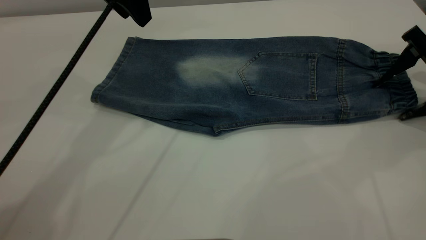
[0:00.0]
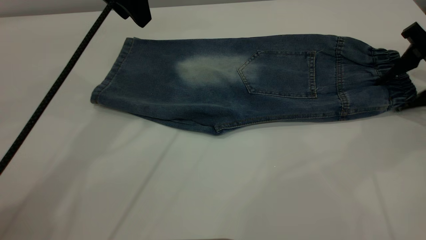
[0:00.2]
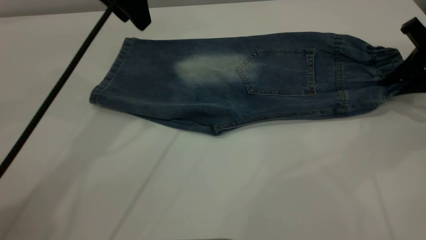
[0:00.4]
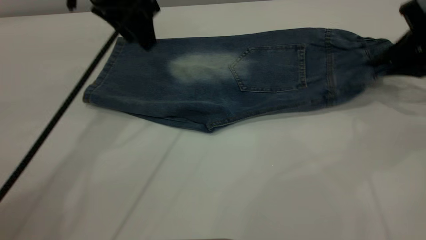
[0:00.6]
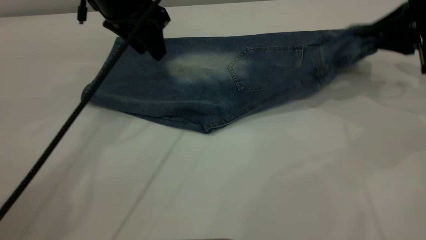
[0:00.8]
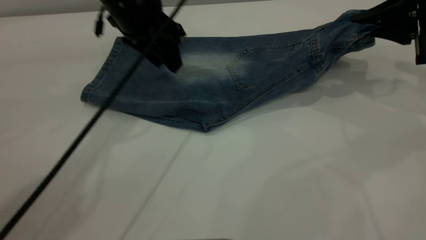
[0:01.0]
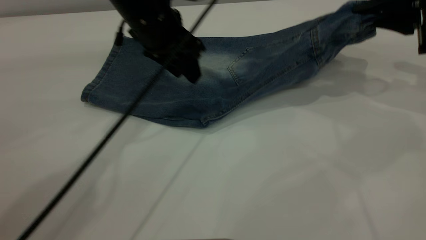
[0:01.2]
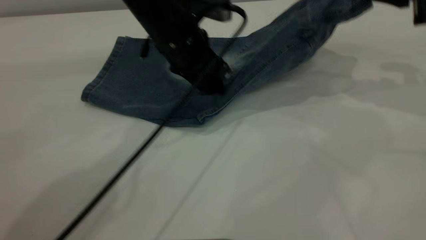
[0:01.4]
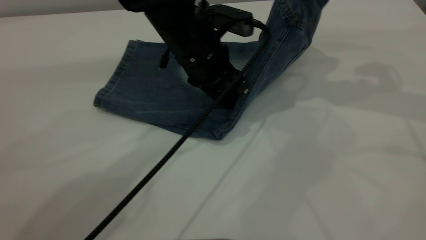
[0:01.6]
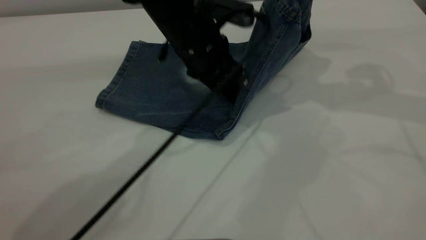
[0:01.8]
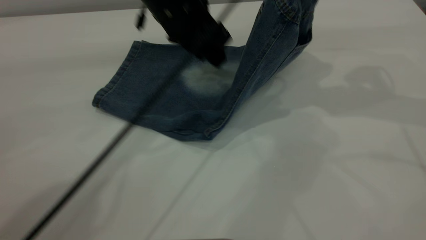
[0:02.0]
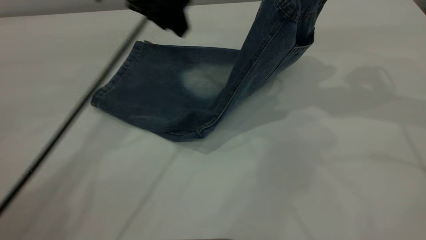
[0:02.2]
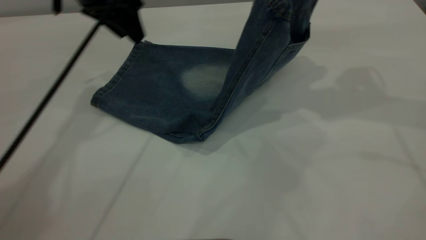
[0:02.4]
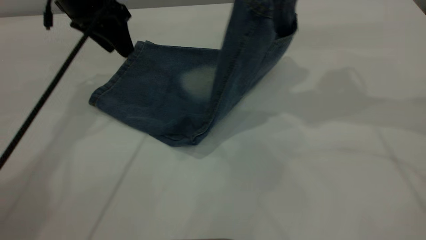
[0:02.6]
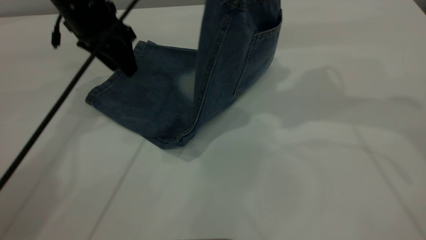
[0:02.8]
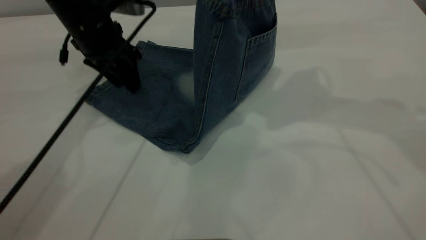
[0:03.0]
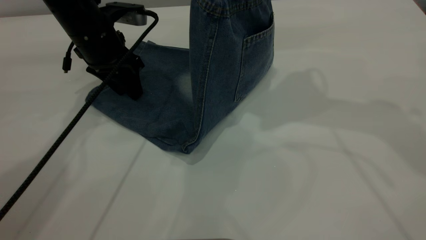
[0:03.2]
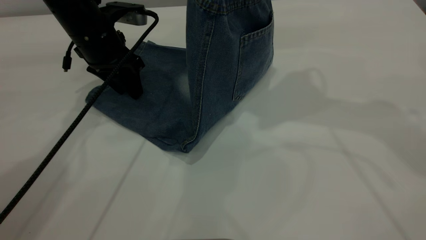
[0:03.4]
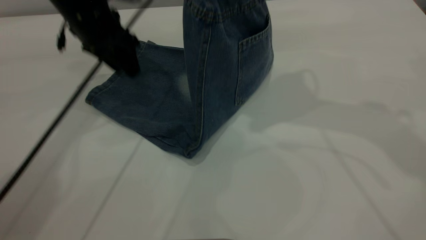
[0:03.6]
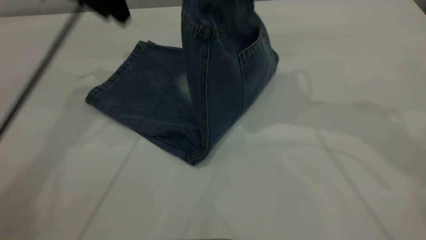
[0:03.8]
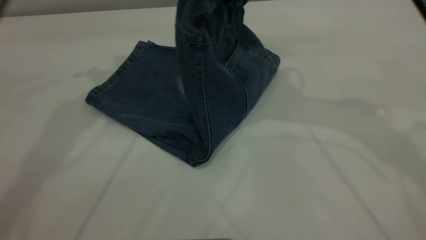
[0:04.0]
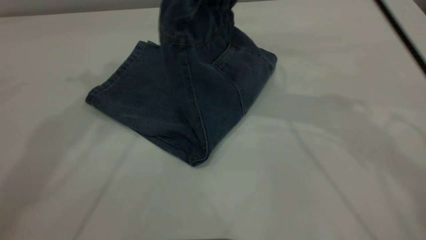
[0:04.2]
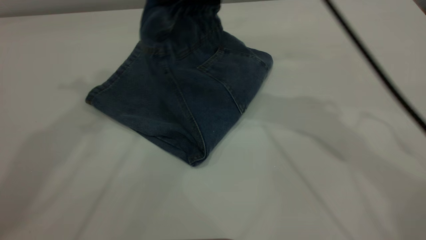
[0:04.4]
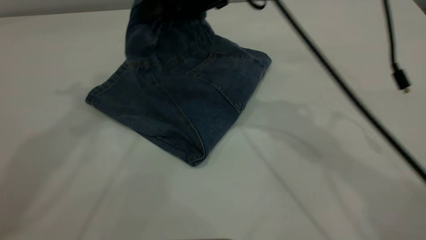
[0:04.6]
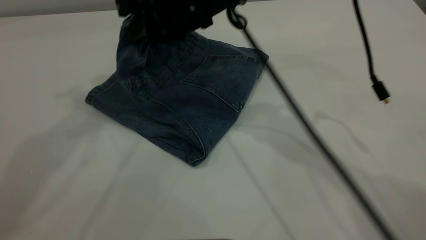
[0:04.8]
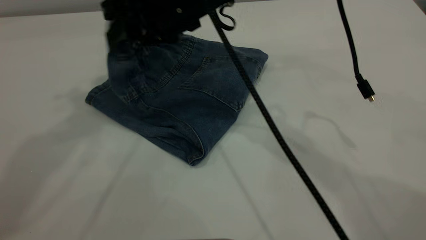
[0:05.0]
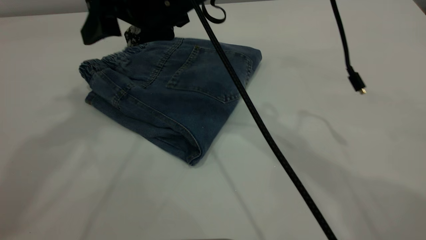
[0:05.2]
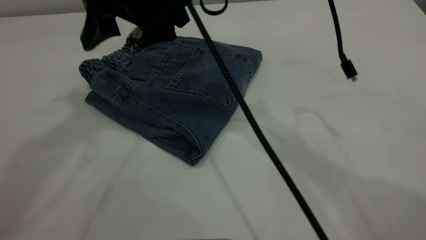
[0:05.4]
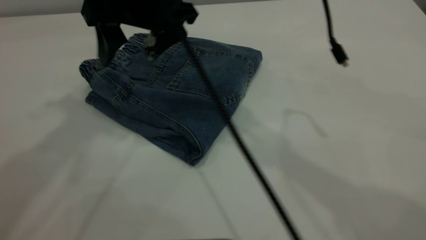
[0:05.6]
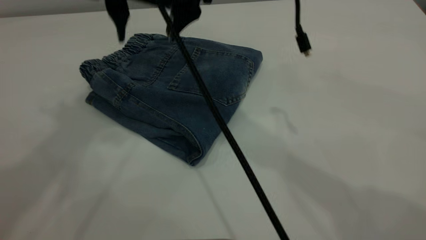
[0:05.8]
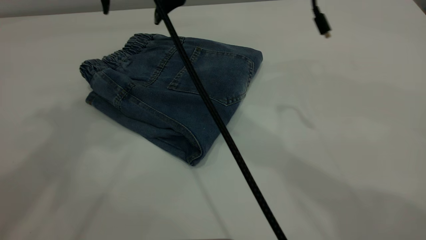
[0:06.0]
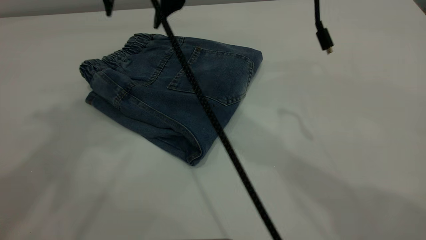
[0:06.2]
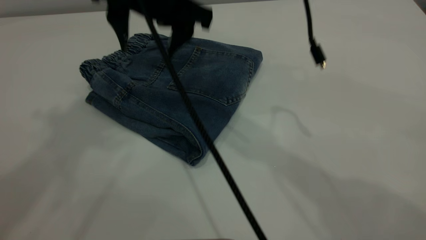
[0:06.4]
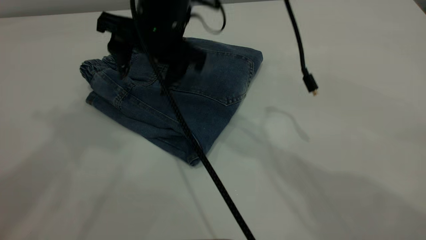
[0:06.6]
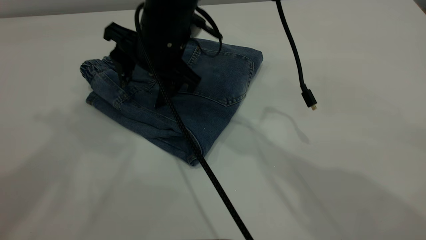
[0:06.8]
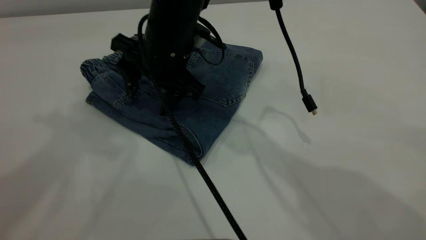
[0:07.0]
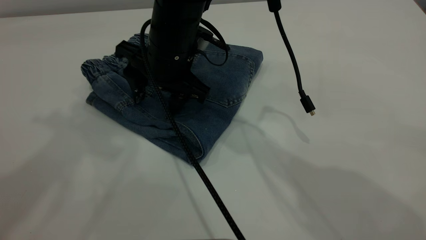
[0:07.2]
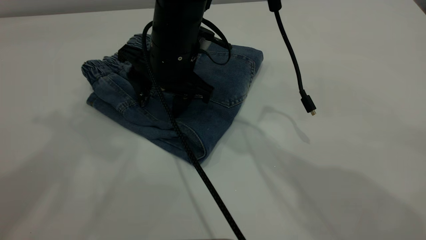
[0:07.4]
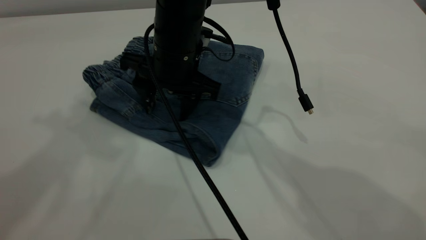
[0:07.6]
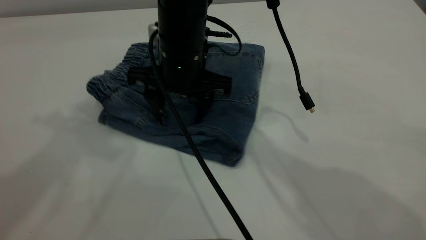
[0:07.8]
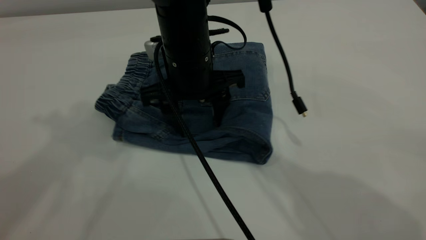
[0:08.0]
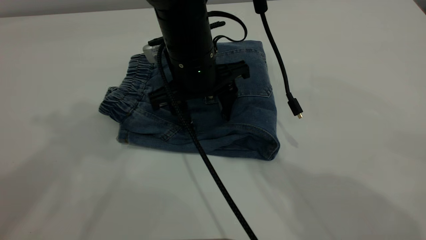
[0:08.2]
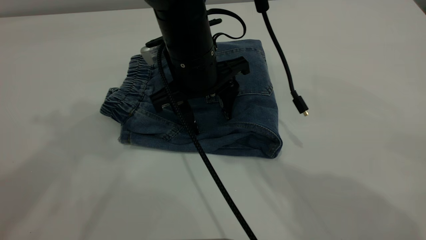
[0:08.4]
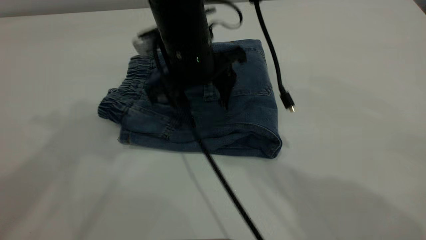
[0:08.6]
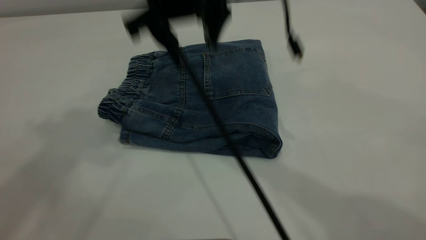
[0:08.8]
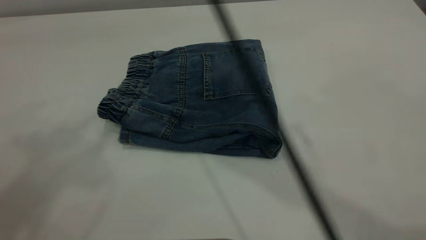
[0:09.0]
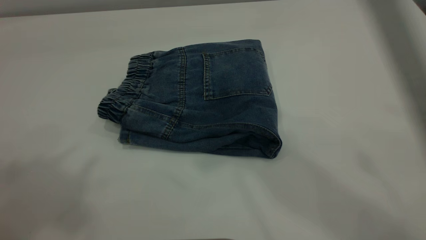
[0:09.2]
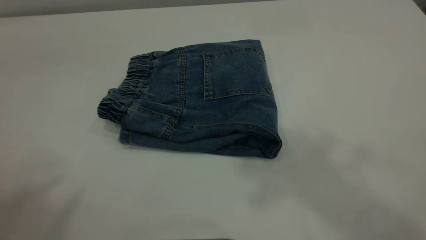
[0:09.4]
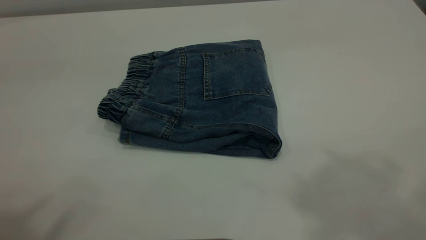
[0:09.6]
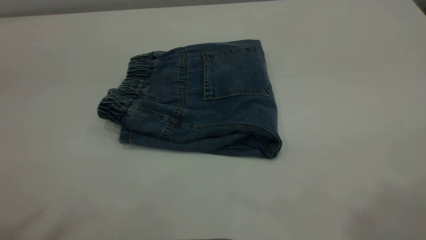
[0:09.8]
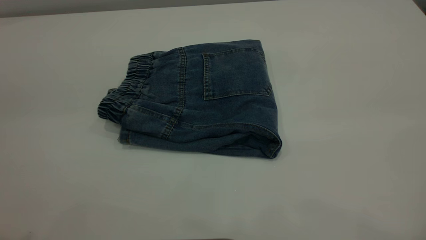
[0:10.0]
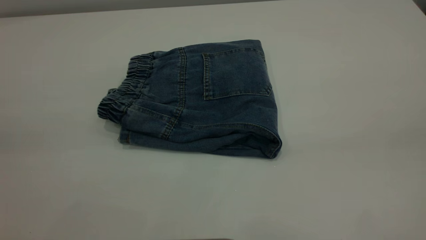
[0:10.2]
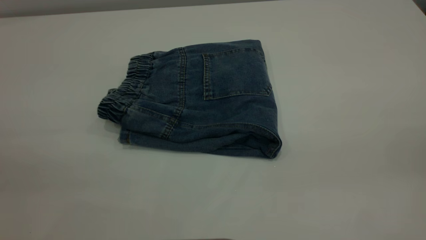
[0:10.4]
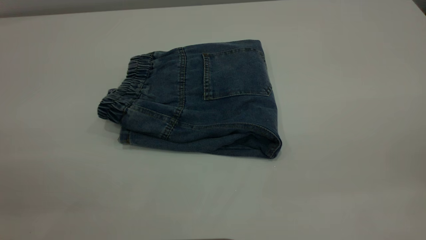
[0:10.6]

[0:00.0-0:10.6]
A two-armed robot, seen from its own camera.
Step, 0:00.0 to 0:05.4: Fold your pants from right to left.
0:00.0 to 0:01.6: The right gripper heads upward and to the left, covering some 15 cm, and closes its fingers. Meanwhile the left gripper shifts roughly 15 cm downward and to the right.
0:01.6 to 0:03.0: The left gripper shifts roughly 15 cm to the left; the right gripper is displaced to the left by roughly 10 cm.
0:03.0 to 0:04.6: The left gripper heads upward, covering roughly 30 cm; the right gripper heads to the left and downward, covering roughly 15 cm.
0:04.6 to 0:06.0: The right gripper goes some 10 cm to the left and upward, and opens; the left gripper is displaced upward and backward by about 10 cm.
0:06.0 to 0:07.6: The right gripper moves downward, about 15 cm.
0:07.6 to 0:09.0: The left gripper shifts some 5 cm backward; the right gripper shifts roughly 25 cm upward.
0:09.0 to 0:10.6: The left gripper travels backward and downward by about 30 cm, while the right gripper goes about 40 cm to the right and backward.

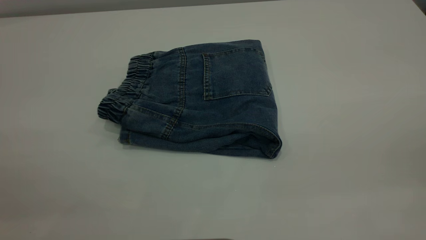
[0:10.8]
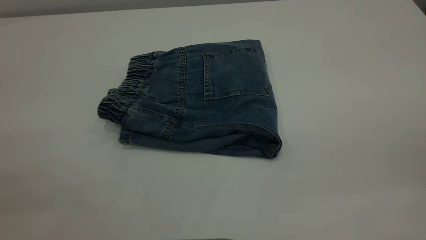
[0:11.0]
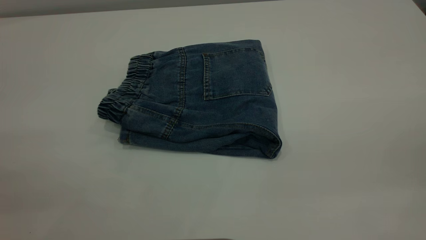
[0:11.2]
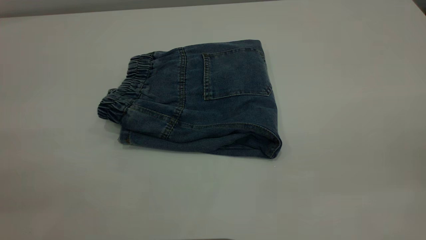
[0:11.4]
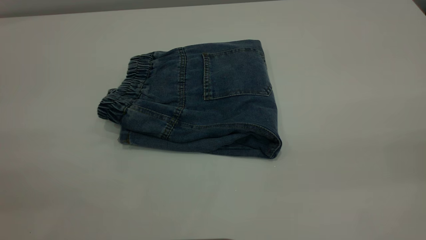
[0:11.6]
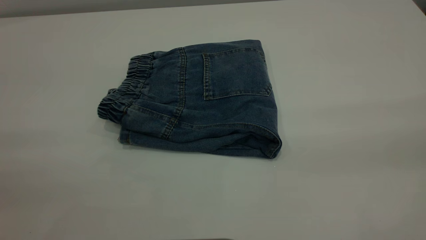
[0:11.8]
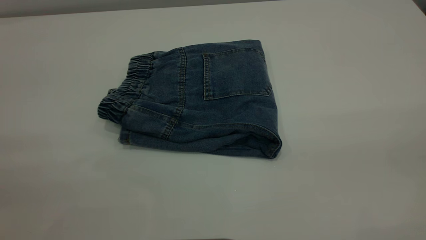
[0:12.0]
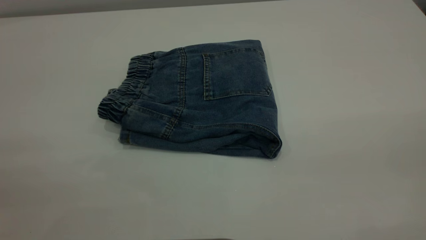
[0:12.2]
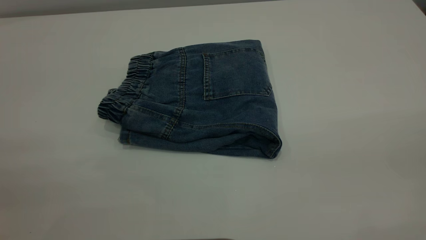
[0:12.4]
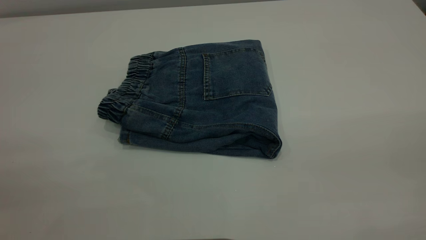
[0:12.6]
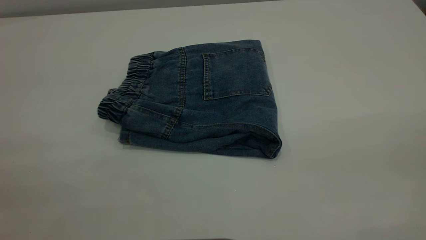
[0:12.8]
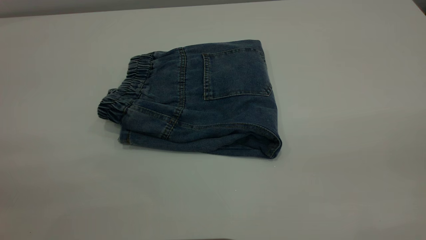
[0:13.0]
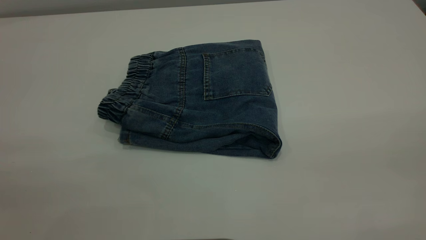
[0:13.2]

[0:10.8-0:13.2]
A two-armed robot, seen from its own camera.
0:12.0 to 0:13.2: Both grippers stay put.

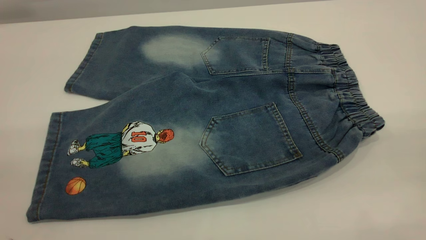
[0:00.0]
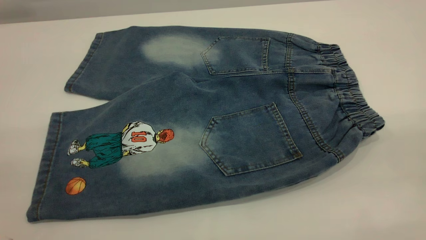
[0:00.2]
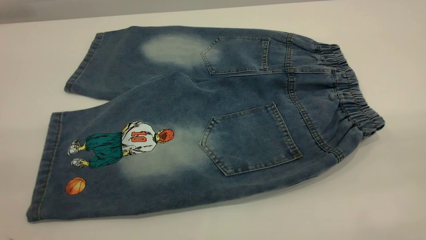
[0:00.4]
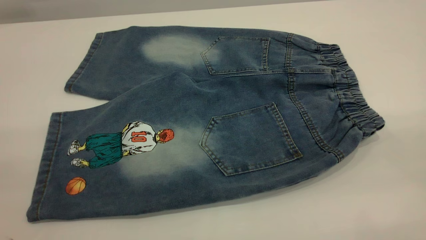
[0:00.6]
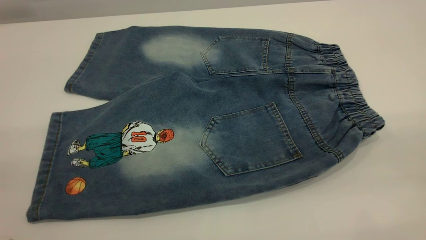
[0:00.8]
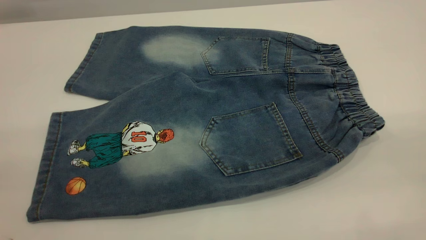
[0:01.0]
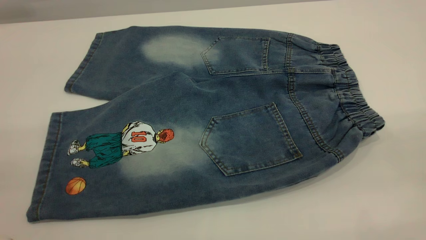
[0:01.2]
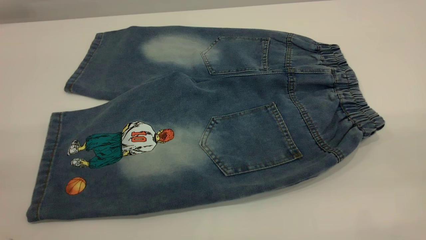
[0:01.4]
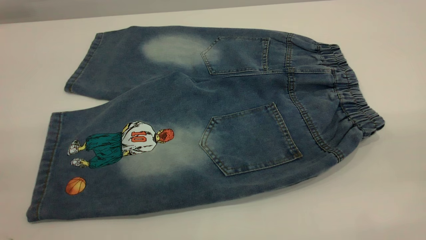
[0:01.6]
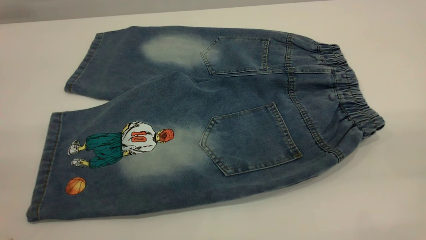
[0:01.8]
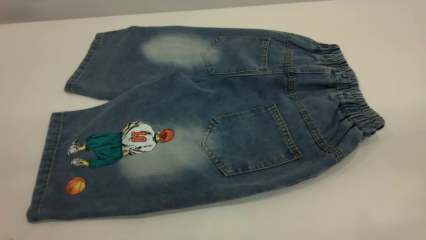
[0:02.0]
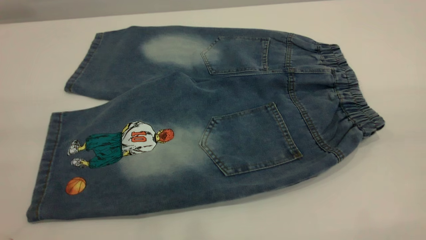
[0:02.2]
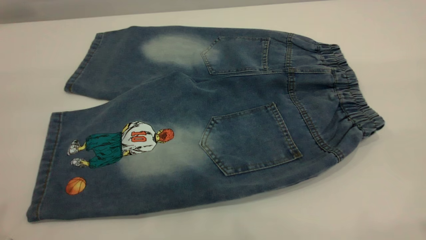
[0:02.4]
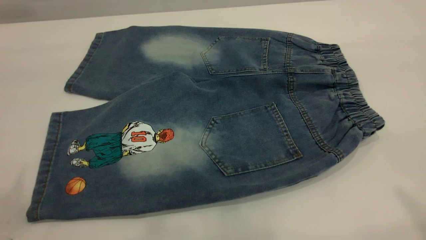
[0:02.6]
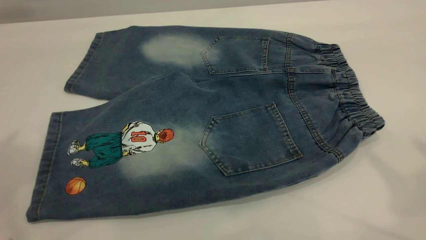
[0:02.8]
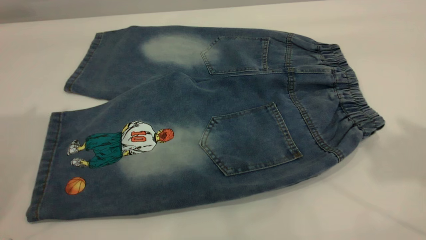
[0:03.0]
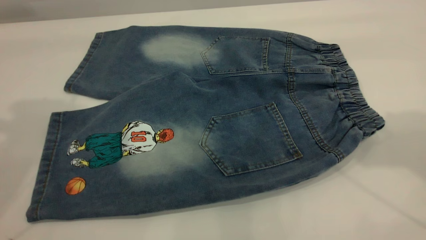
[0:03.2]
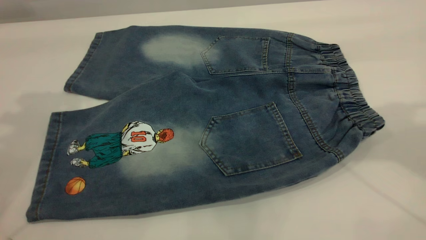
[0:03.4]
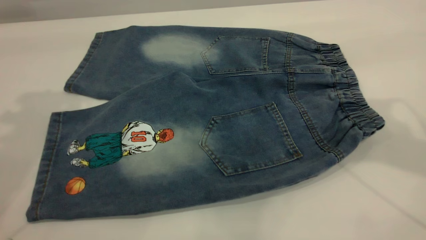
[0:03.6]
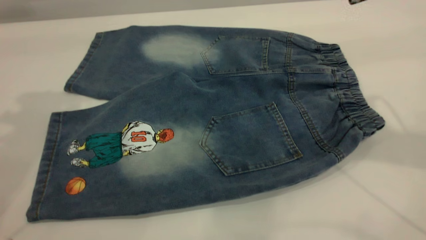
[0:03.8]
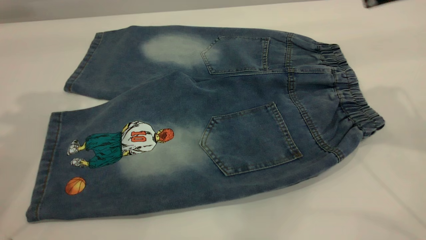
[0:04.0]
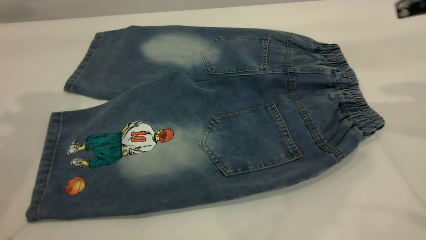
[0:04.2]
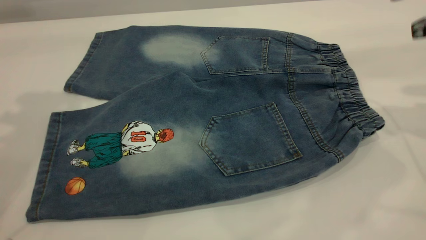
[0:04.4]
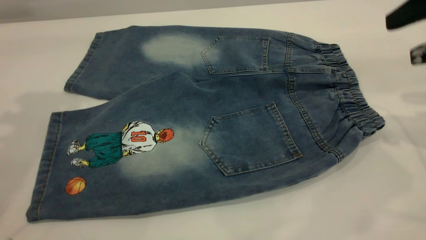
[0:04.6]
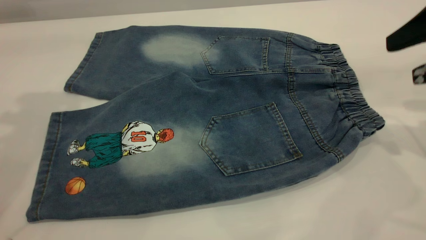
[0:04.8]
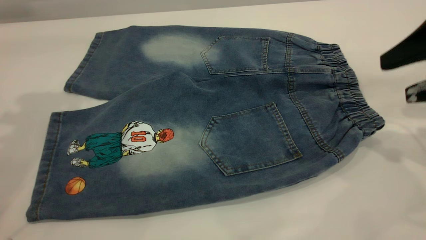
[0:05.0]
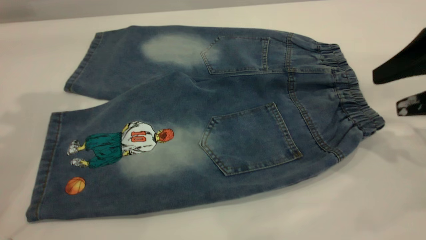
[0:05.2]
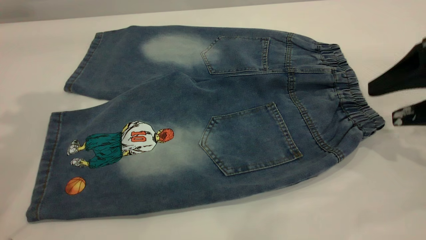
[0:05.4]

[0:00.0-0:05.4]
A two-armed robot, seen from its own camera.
0:00.0 to 0:01.4: Neither gripper changes place.
0:04.0 to 0:05.4: The right gripper travels downward by some 15 cm.
